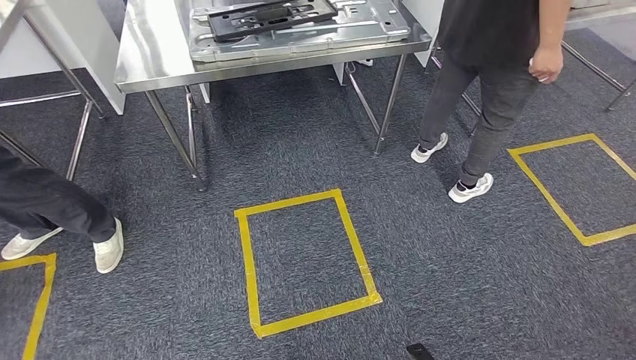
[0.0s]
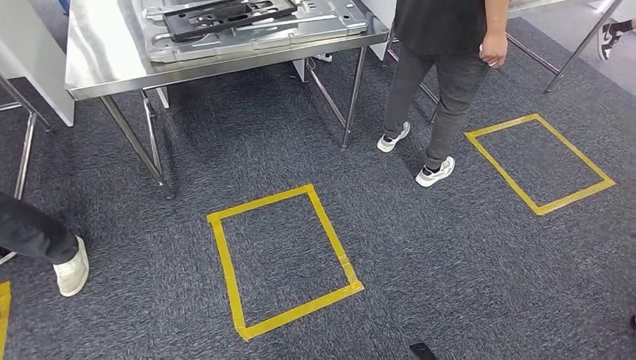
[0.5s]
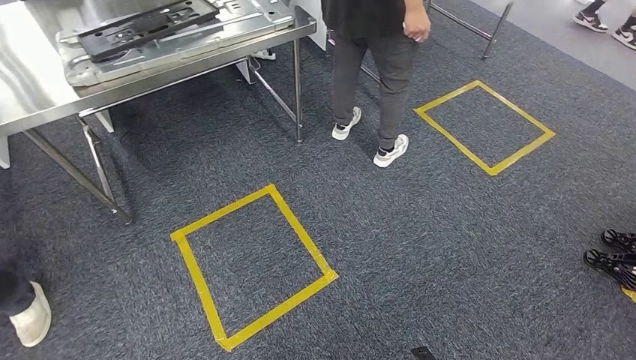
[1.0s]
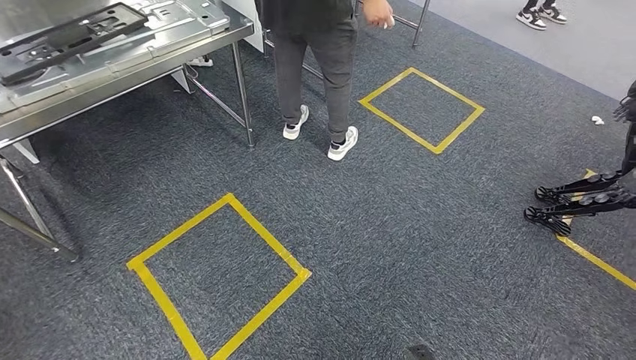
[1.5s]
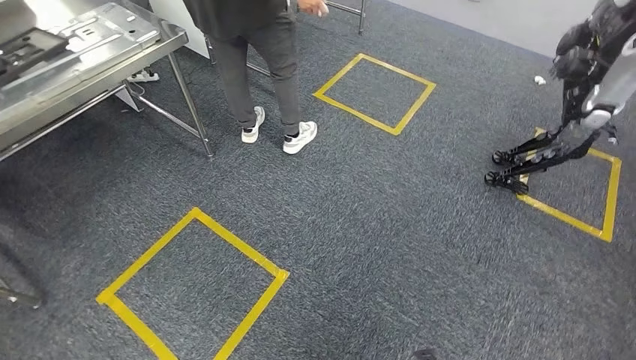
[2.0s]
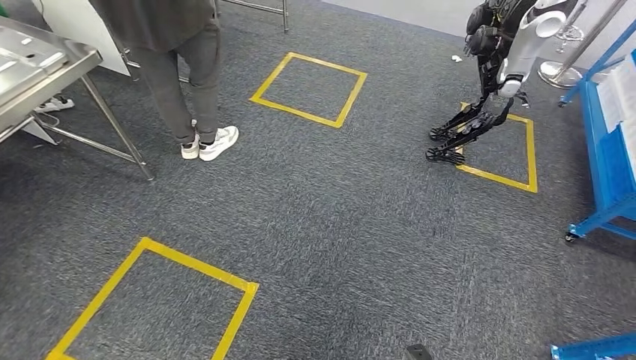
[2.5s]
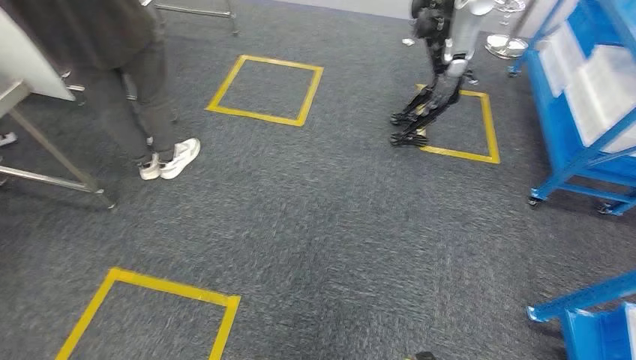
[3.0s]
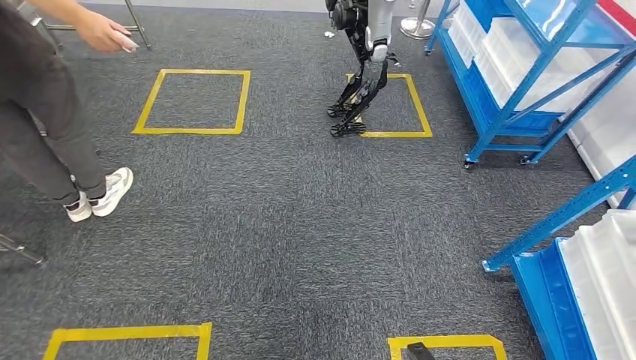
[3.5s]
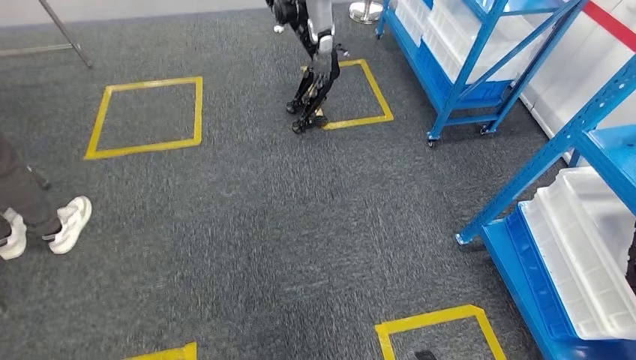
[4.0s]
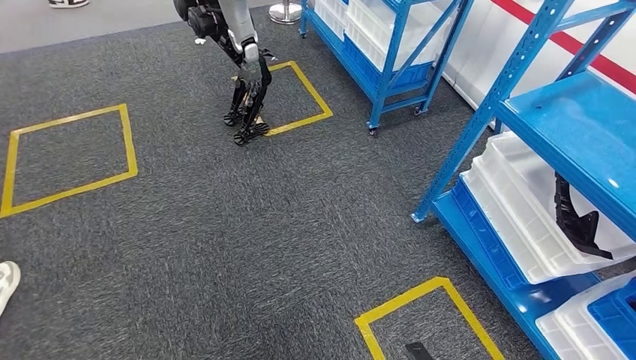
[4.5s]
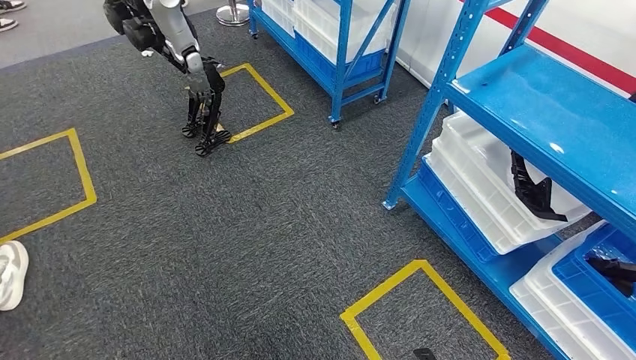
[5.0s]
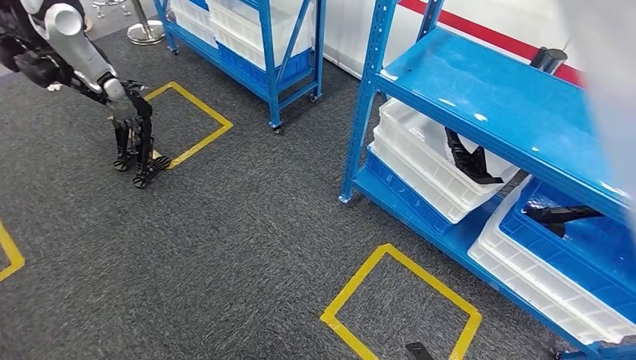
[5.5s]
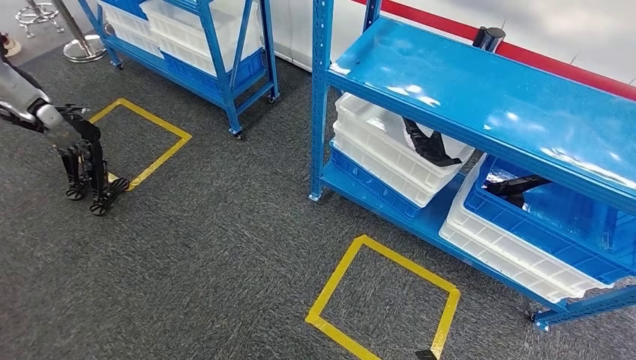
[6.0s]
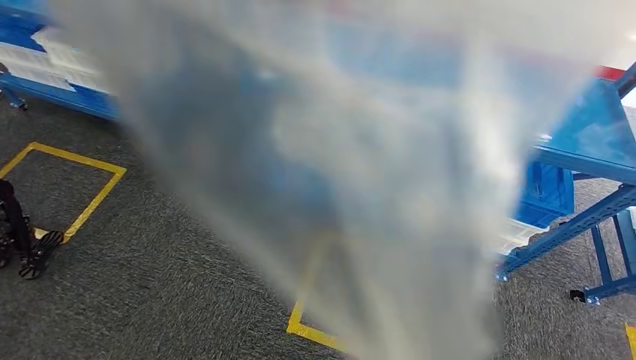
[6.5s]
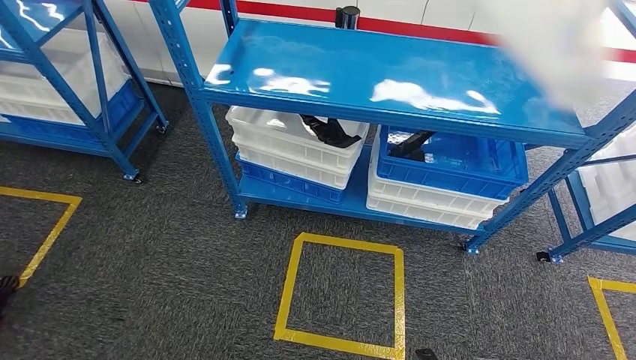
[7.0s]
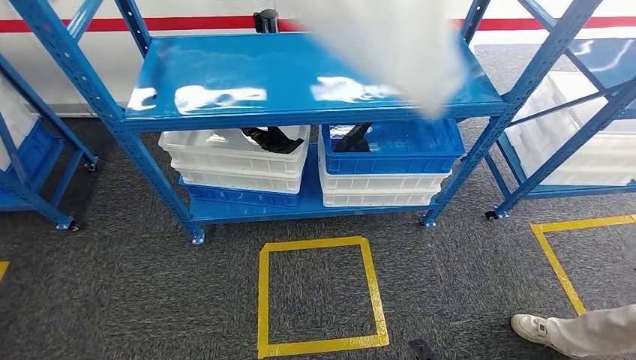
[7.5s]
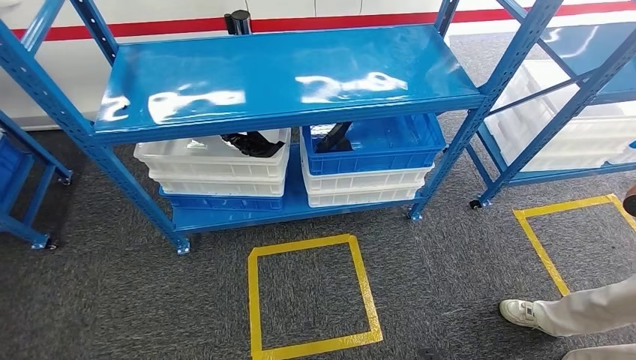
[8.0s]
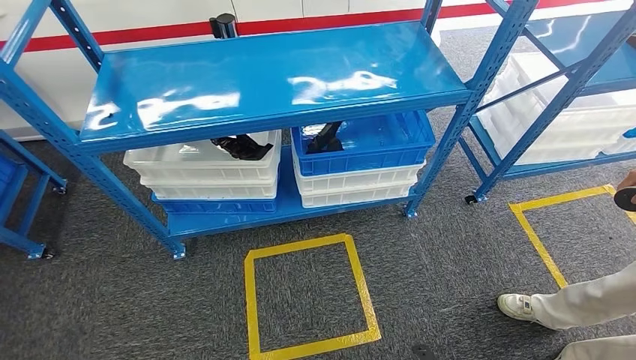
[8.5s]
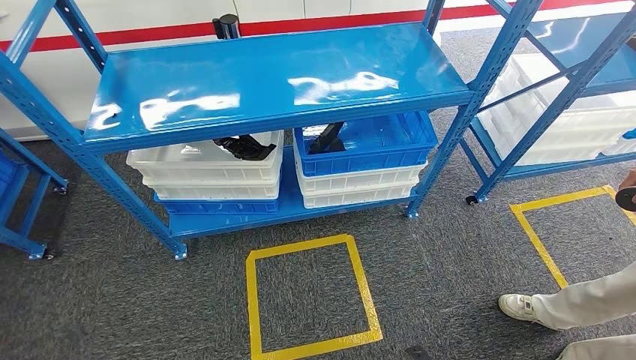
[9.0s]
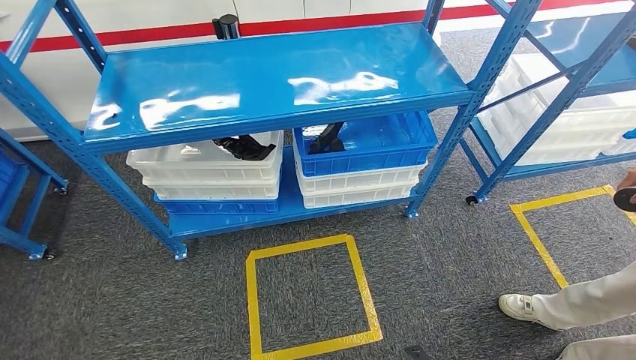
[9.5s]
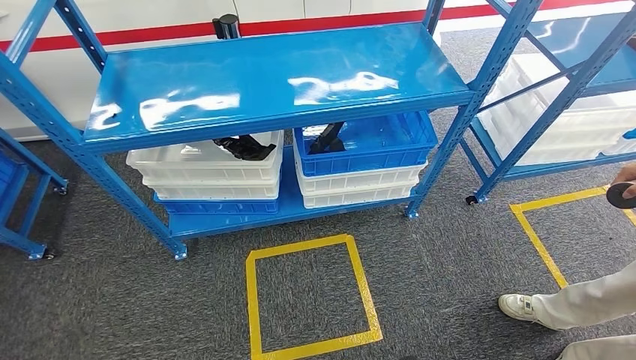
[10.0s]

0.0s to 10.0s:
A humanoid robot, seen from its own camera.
Step, 0.0s to 10.0s: Move to the initial position of the shelf.
